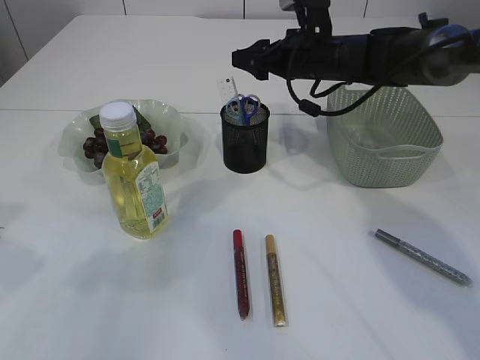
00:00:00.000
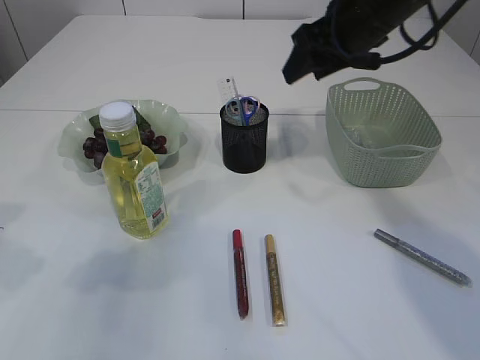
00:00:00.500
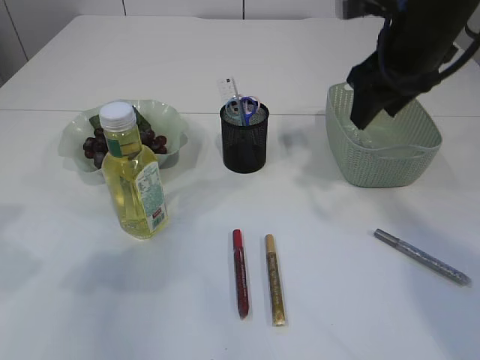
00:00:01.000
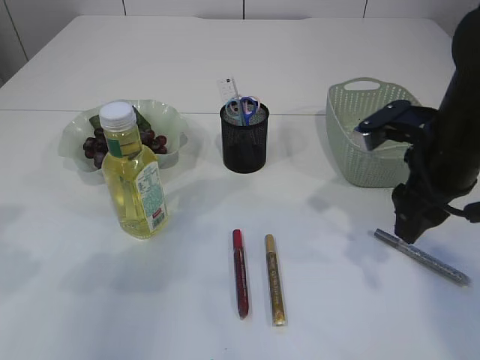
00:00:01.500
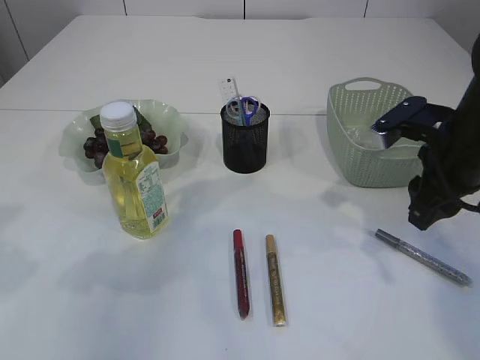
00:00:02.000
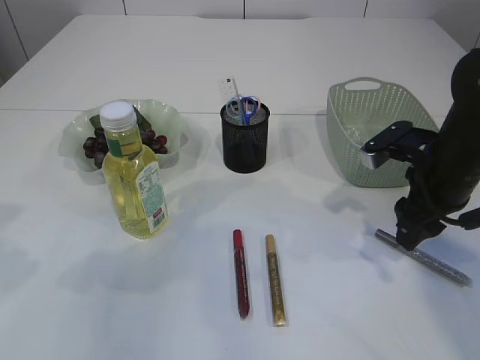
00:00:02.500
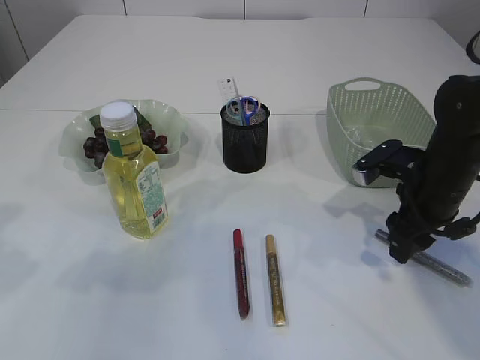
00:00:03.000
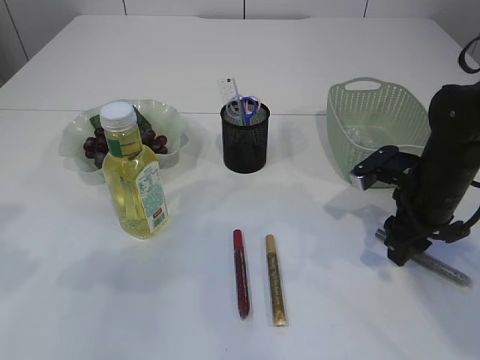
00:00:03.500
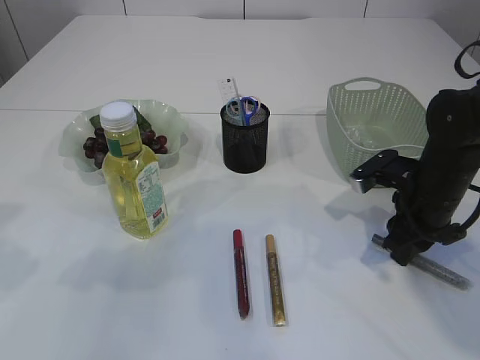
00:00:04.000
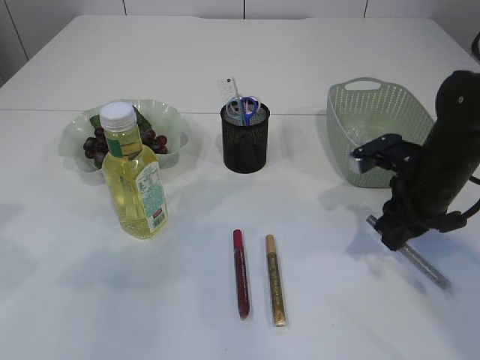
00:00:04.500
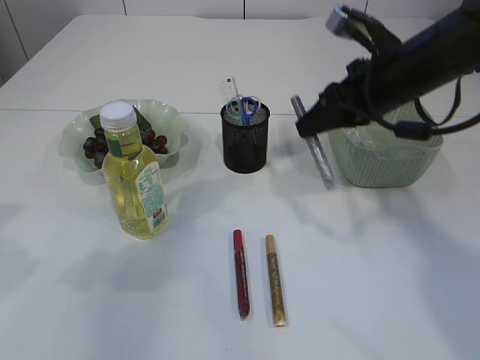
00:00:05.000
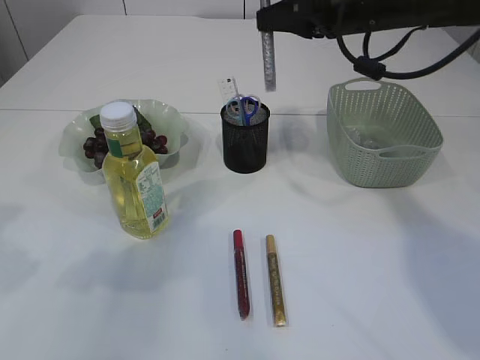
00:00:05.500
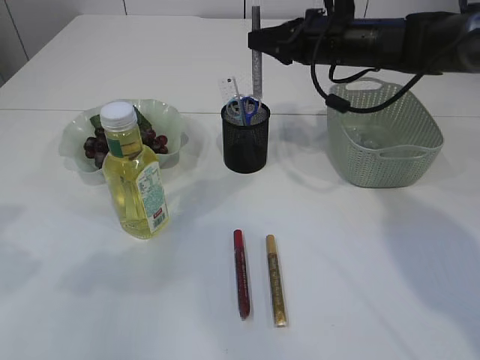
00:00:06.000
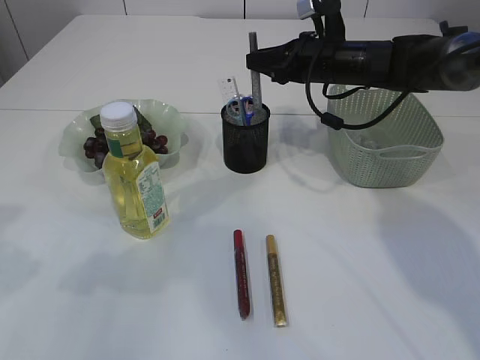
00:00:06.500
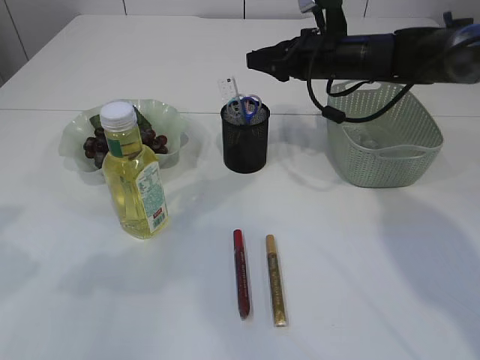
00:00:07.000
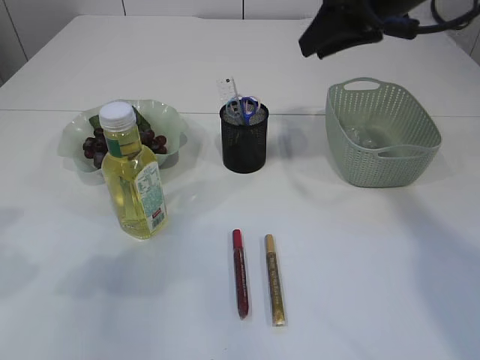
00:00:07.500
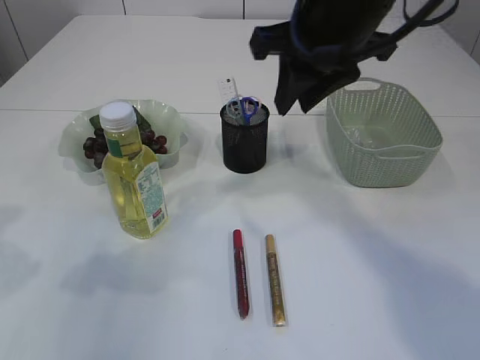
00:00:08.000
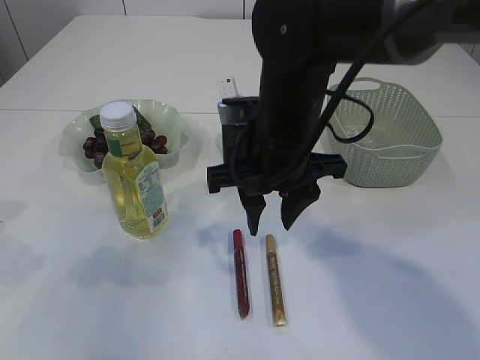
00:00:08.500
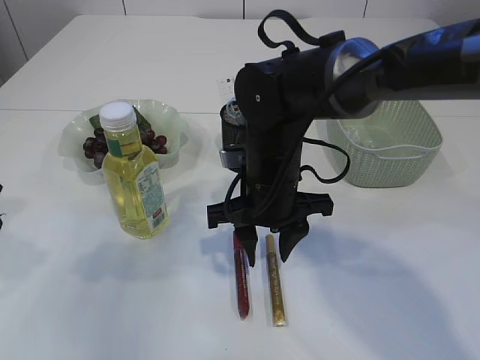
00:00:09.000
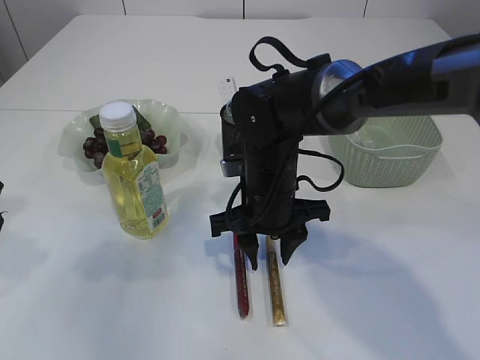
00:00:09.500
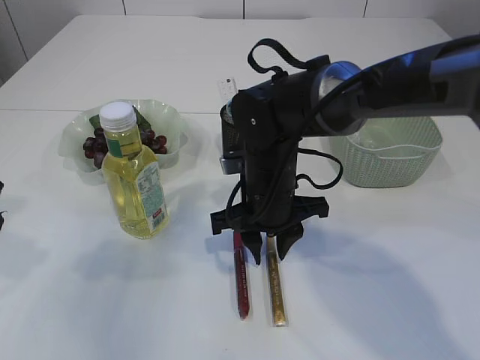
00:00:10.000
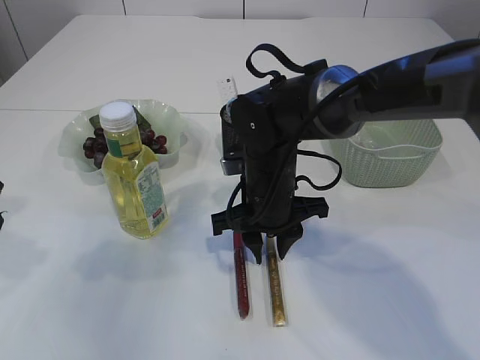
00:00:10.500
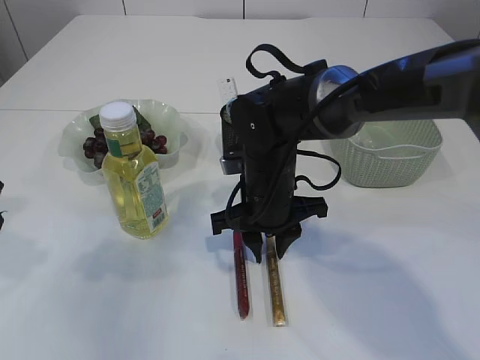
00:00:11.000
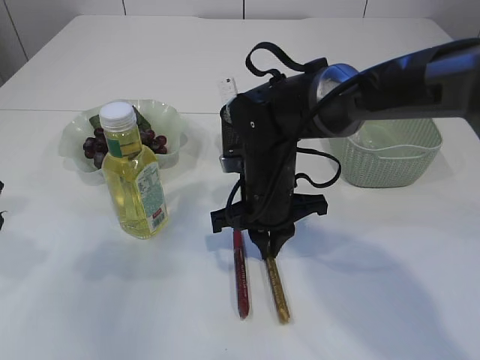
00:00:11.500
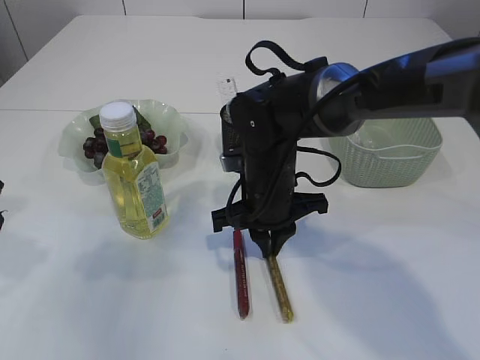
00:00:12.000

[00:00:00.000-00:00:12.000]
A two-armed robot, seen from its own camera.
Step, 00:00:00.500 to 00:00:04.500: pick up the silver glue.
Step, 00:00:05.000 to 00:00:07.000: place the silver glue into the pen holder.
00:00:00.000 to 00:00:02.000: The right gripper travels backward and to the right by roughly 20 cm.
00:00:02.000 to 00:00:04.000: The right gripper heads downward, covering about 10 cm.
00:00:04.000 to 00:00:06.000: The right gripper heads forward, upward and to the left, covering about 20 cm.
00:00:06.000 to 00:00:08.000: The right gripper is displaced backward and upward by approximately 15 cm.
00:00:08.000 to 00:00:10.000: The right gripper travels downward by some 20 cm.
00:00:10.000 to 00:00:12.000: The right gripper closes its fingers.

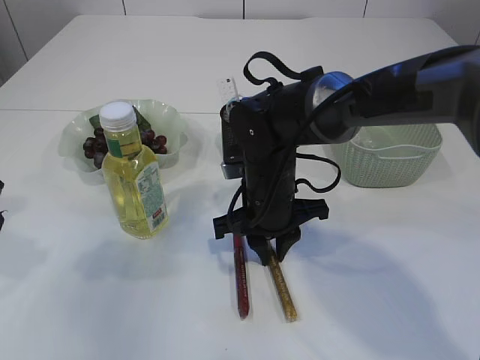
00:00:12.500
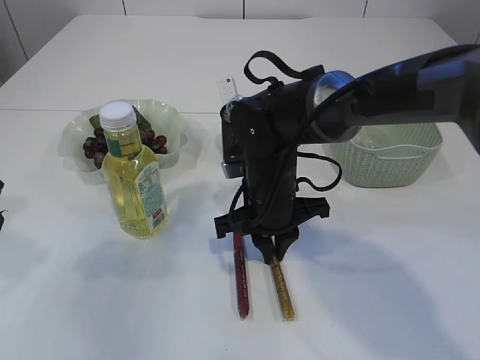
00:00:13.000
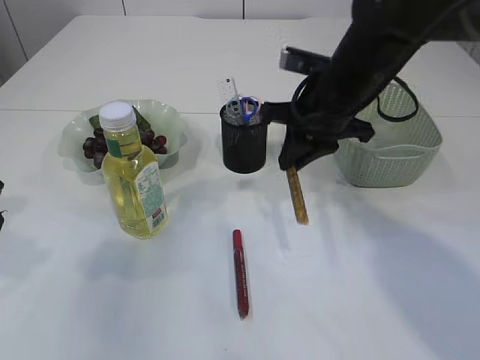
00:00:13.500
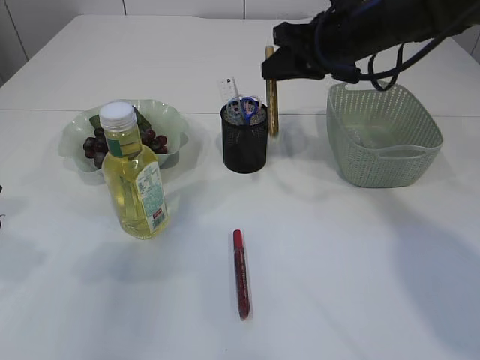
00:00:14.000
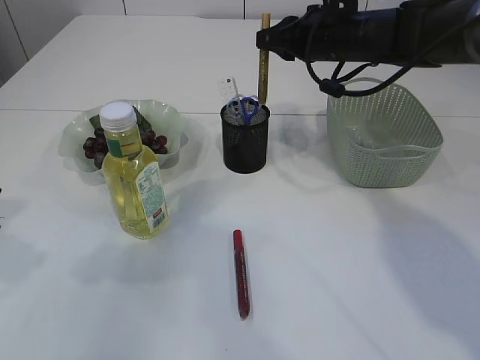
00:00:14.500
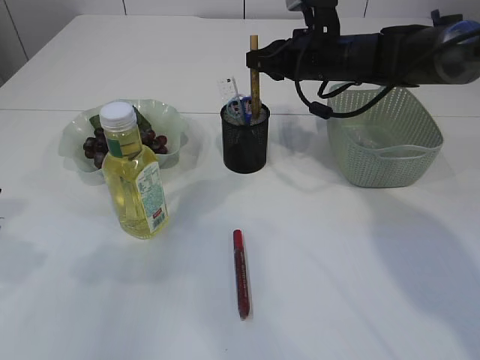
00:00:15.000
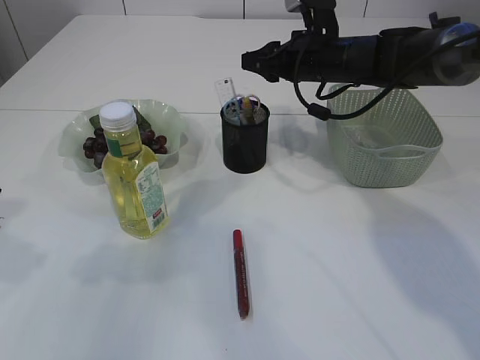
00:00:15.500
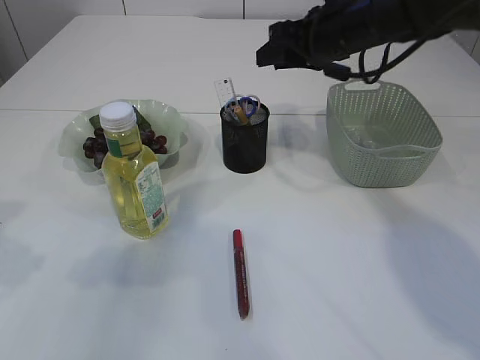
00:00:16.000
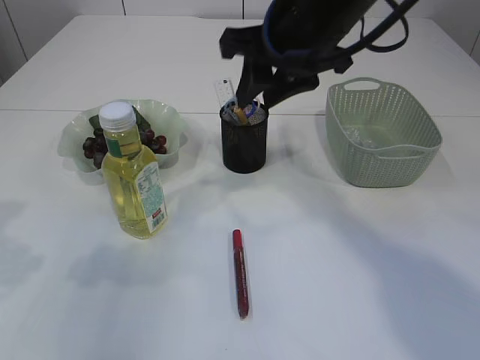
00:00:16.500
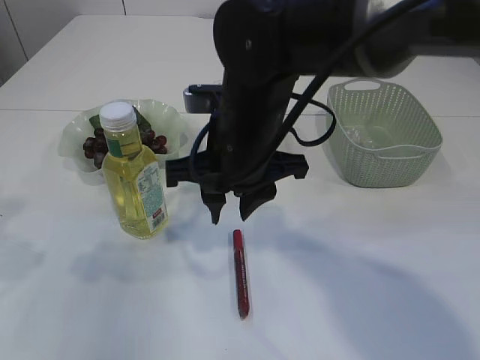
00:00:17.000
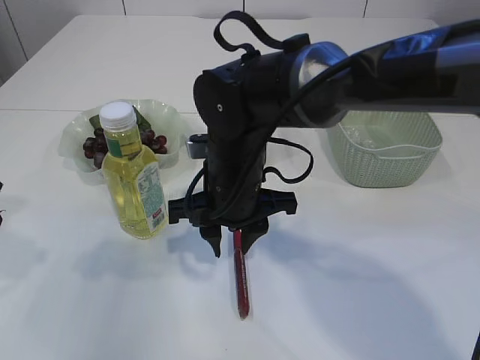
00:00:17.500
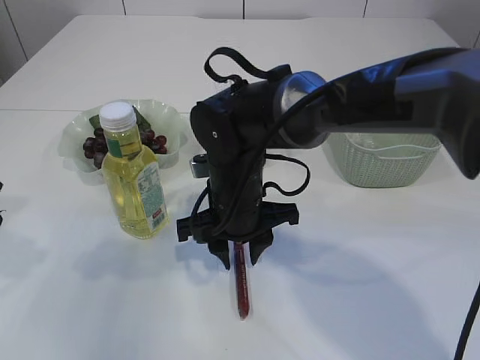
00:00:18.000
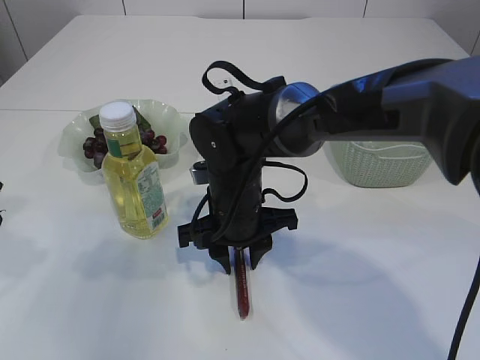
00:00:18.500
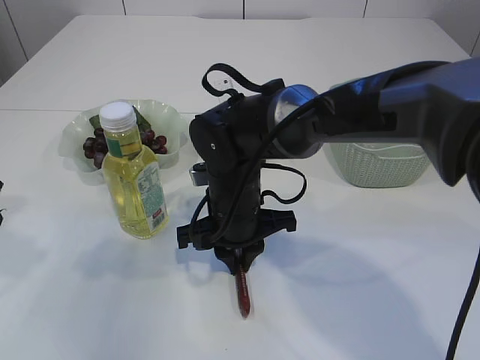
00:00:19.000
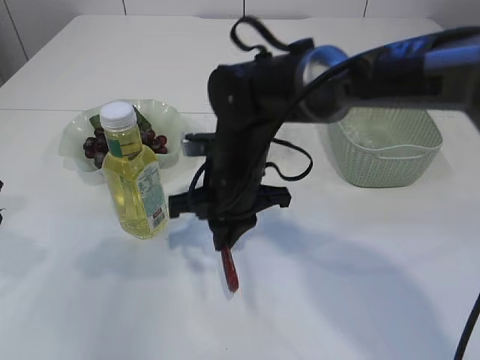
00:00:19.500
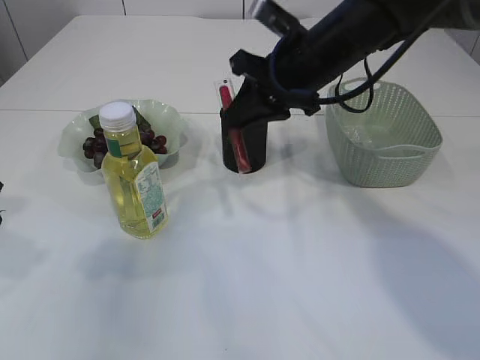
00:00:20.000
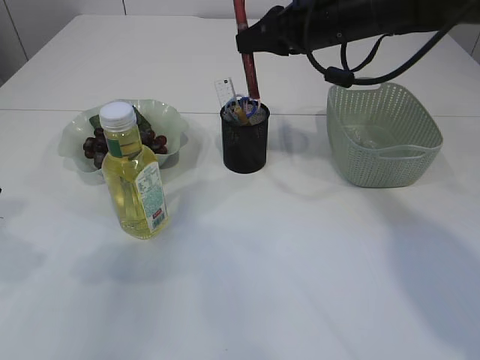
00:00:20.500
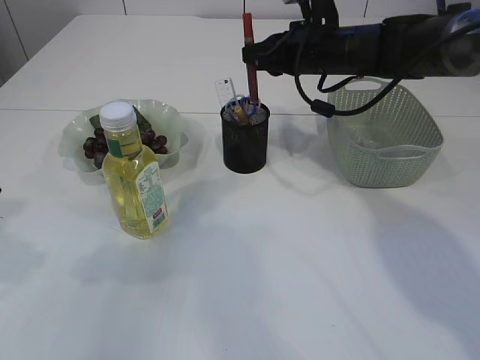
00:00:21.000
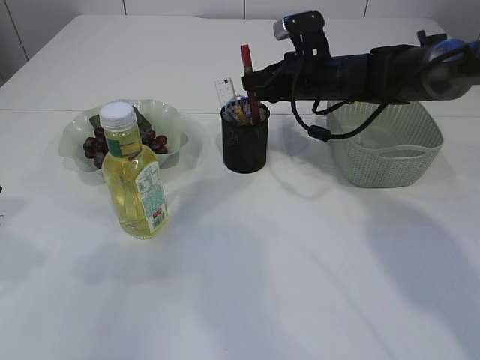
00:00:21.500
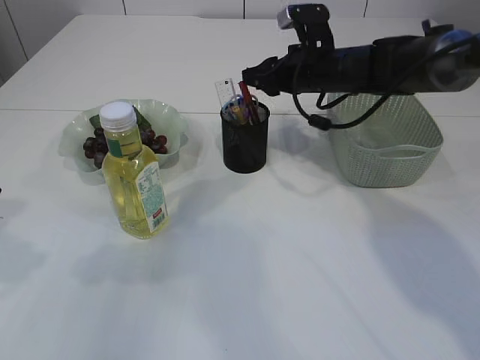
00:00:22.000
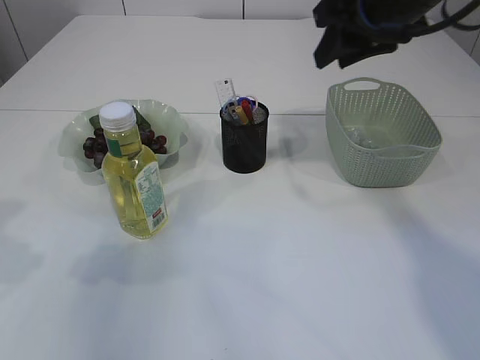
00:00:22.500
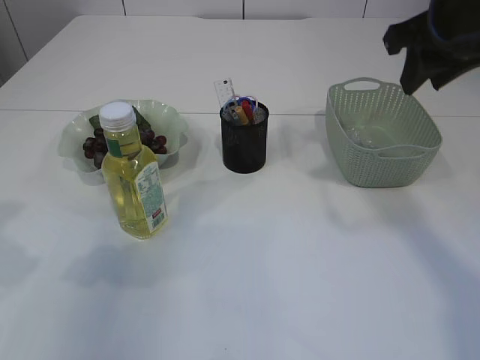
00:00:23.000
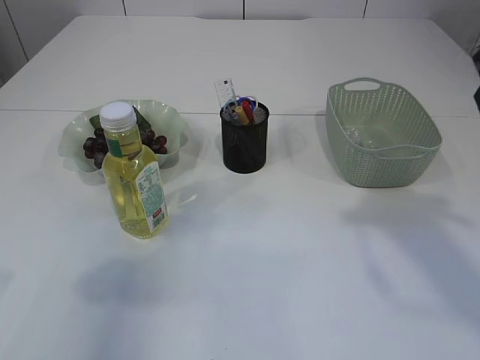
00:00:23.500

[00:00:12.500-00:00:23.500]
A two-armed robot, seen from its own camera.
Step, 00:00:13.500 to 00:00:15.500: place the yellow glue into the pen holder.
Step, 00:00:16.000 to 00:00:19.500: pick up the red glue.
Step, 00:00:20.000 to 00:00:22.000: place the red glue into the pen holder.
00:00:12.500 to 00:00:14.500: The right gripper goes approximately 20 cm upward, forward and to the right.
00:00:14.500 to 00:00:16.000: The right gripper opens up.
00:00:16.000 to 00:00:18.000: The right gripper is displaced to the left, backward and downward by approximately 25 cm.
00:00:18.000 to 00:00:20.000: The right gripper shifts approximately 15 cm upward, to the right and forward, and closes up.
00:00:20.000 to 00:00:21.500: The right gripper shifts some 10 cm forward and downward.
00:00:21.500 to 00:00:23.500: The left gripper changes place by about 5 cm. The right gripper heads backward, upward and to the right, covering some 30 cm, and opens up.

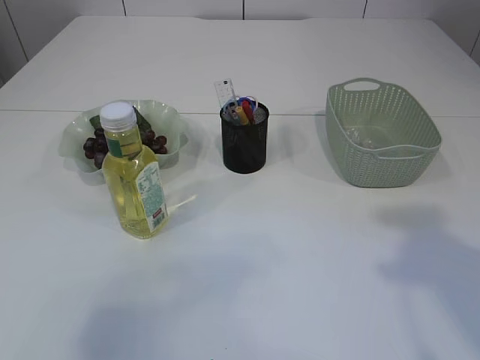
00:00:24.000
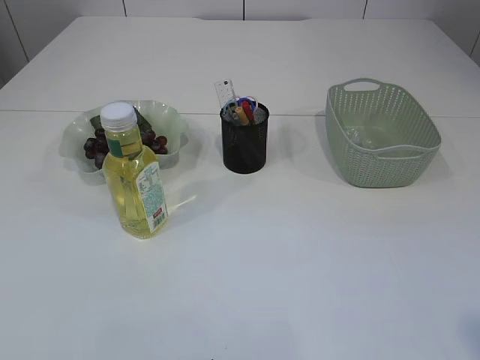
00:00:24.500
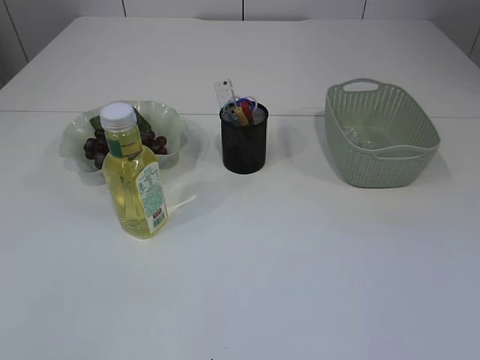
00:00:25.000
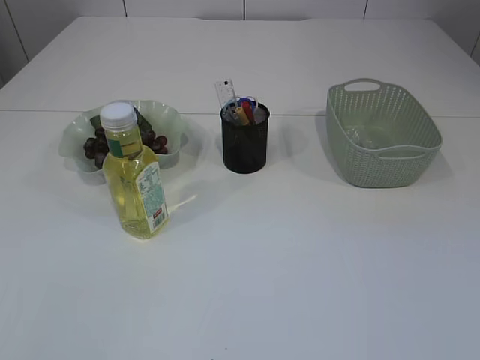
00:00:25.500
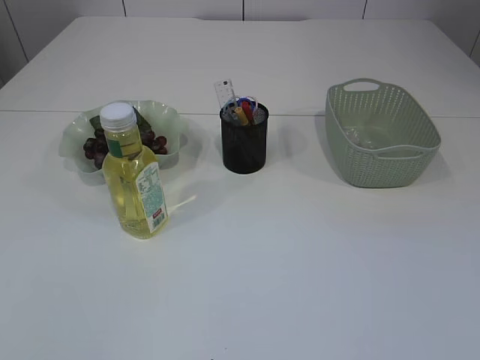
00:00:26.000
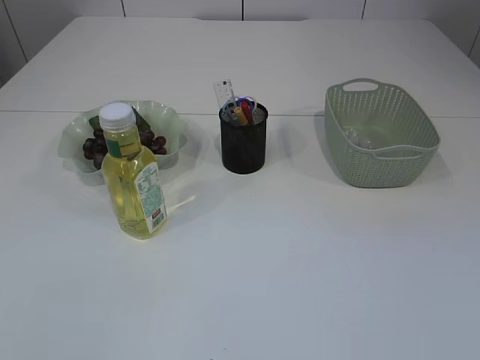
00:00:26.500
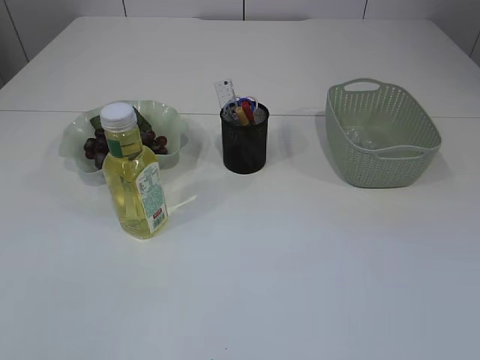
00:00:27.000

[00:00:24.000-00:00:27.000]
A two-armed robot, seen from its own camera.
00:00:24.000 to 00:00:25.500: The left gripper goes approximately 15 cm backward and downward.
